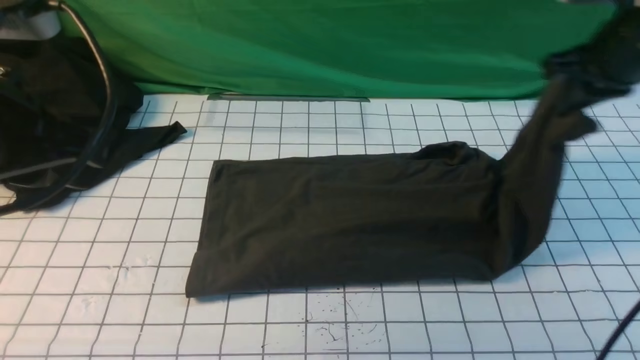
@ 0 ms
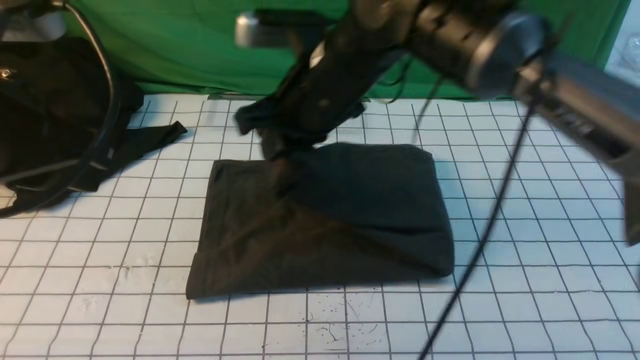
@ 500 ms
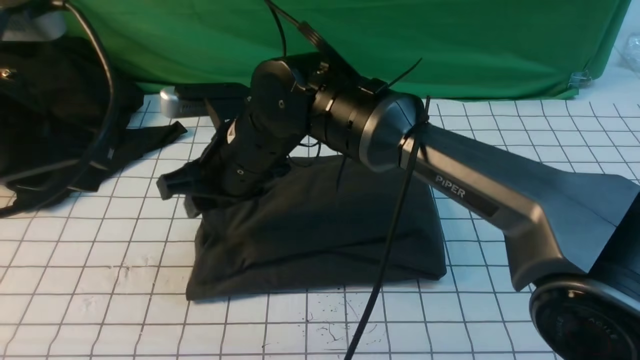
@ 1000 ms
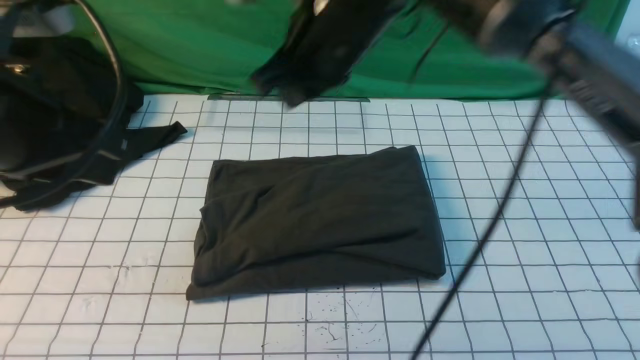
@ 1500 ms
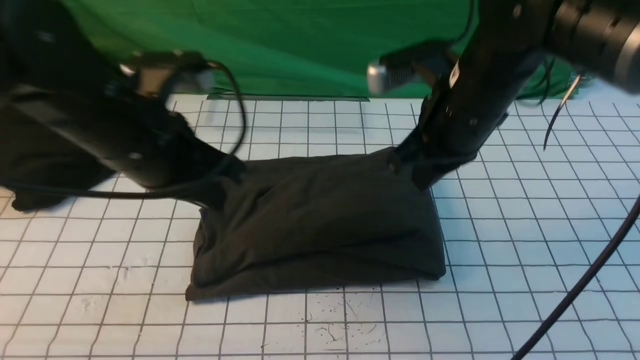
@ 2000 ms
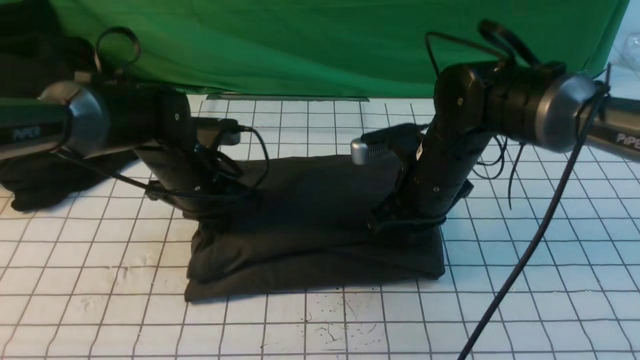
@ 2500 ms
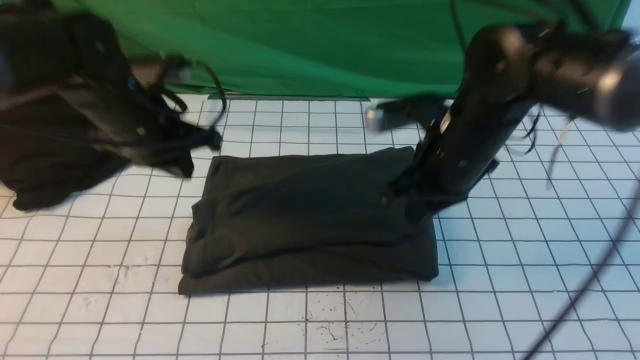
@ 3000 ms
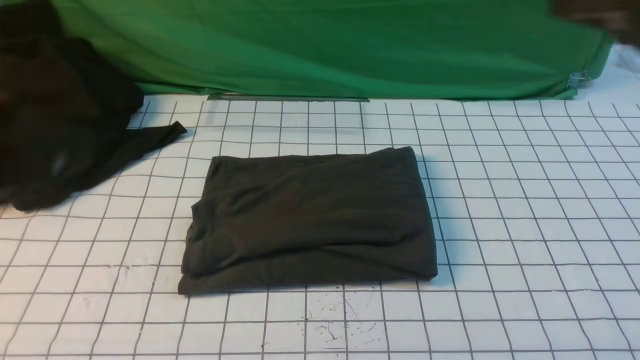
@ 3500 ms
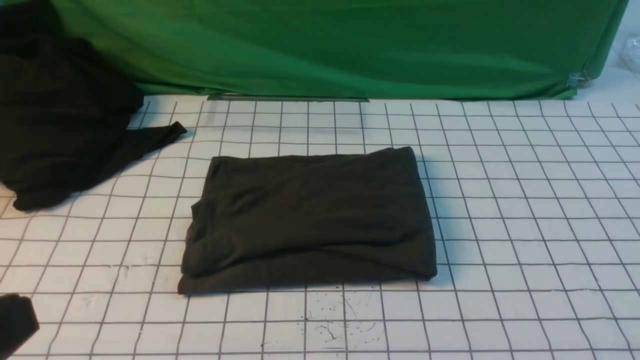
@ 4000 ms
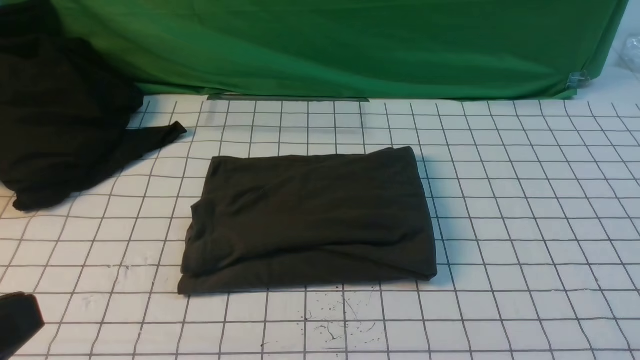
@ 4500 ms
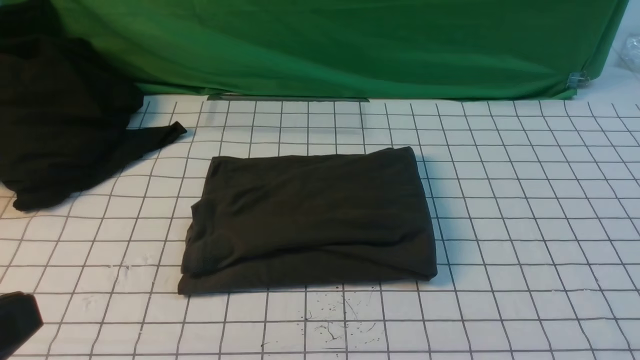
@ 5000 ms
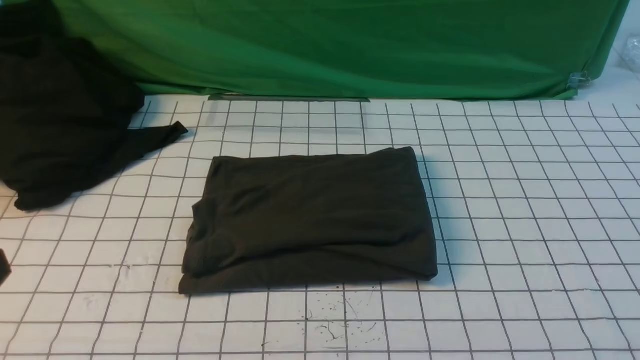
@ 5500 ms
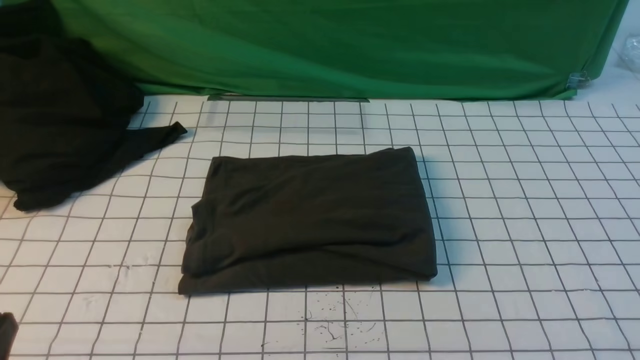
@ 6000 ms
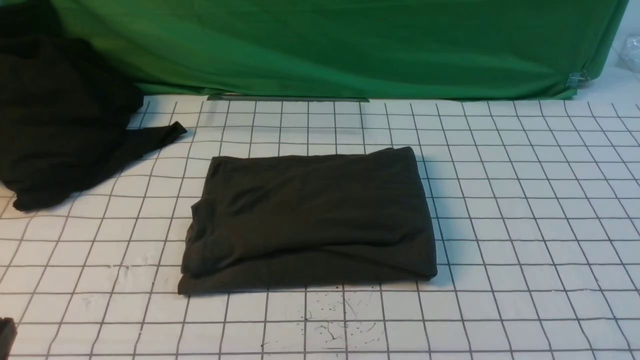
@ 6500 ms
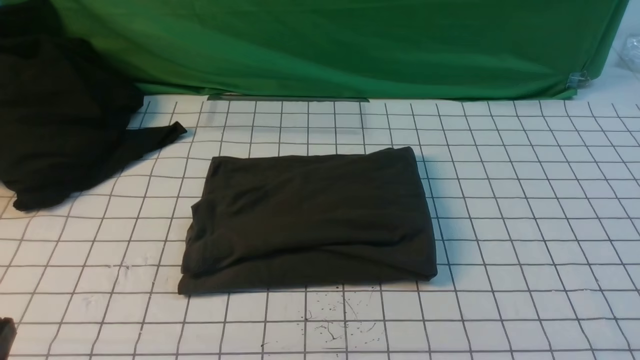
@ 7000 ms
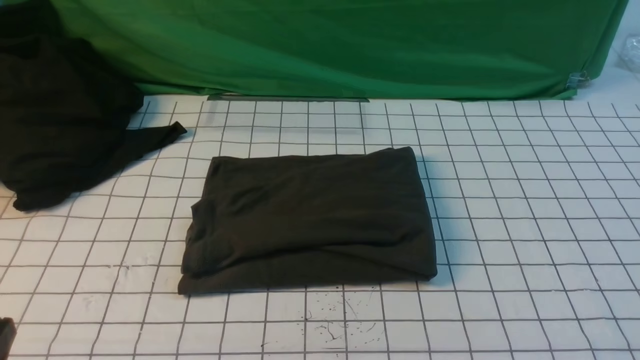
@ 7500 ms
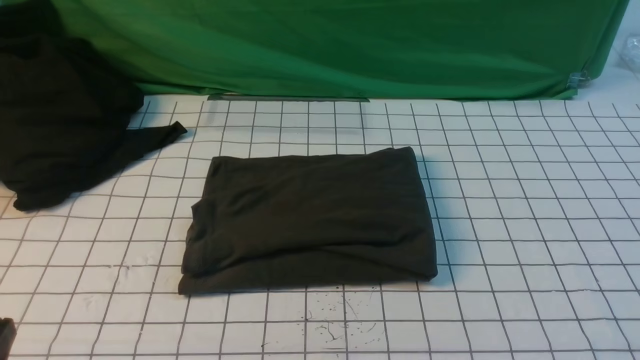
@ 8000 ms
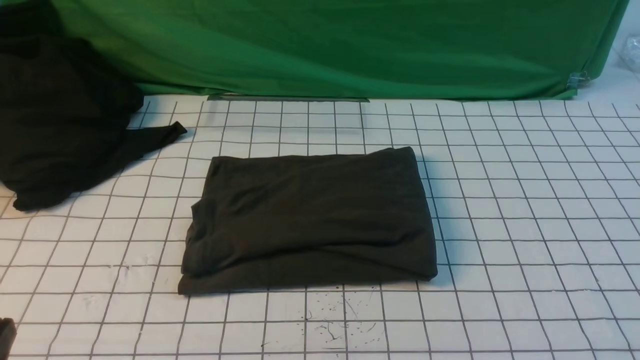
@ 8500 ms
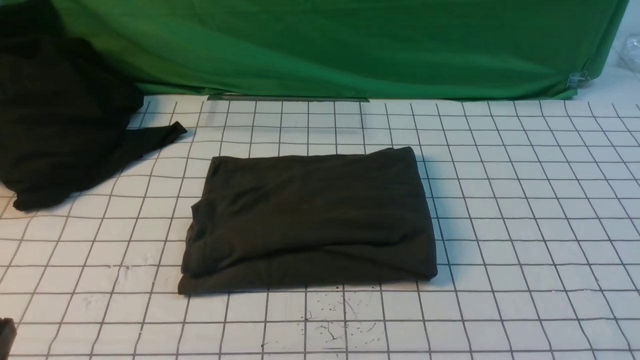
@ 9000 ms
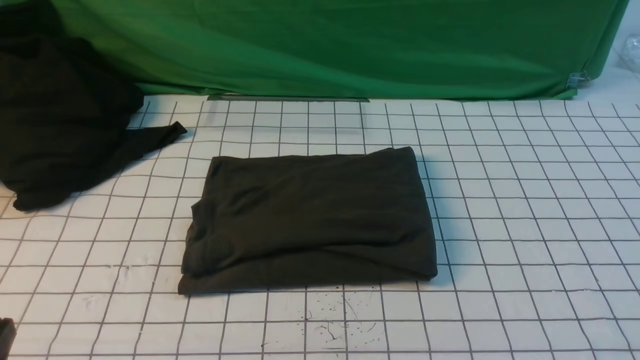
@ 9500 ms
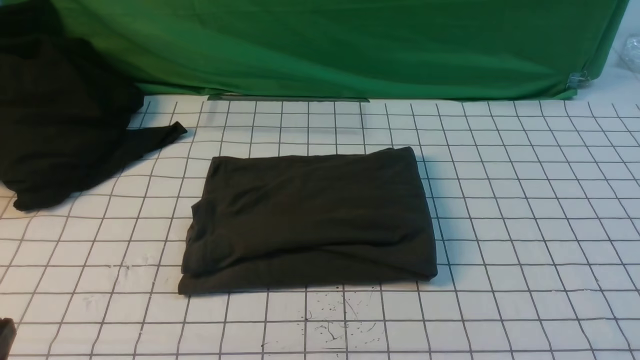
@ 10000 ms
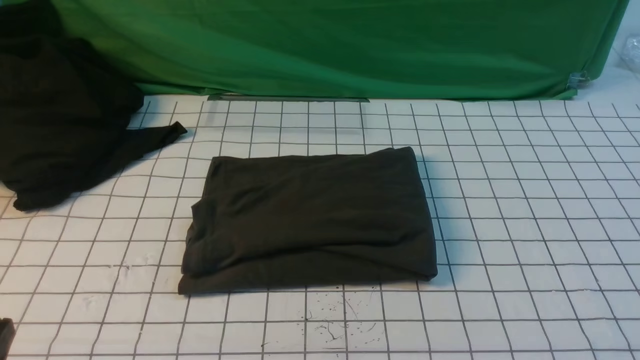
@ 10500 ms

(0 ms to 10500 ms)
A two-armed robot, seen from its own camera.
Step, 0 ms - 1000 ms: use the right arm to drag the right edge of the fabric to the left and folds it over the left edge.
0 ms - 2000 ms: The left gripper shifts roughly 15 cm forward, downward and to the right, while the right gripper is displaced to the left by roughly 15 cm, and opens, then closes again.
2000 ms - 4000 ms: The right gripper shifts some 40 cm backward and to the right, while the left gripper shifts roughly 30 cm backward.
4000 ms - 6500 ms: The left gripper heads downward, covering roughly 15 cm.

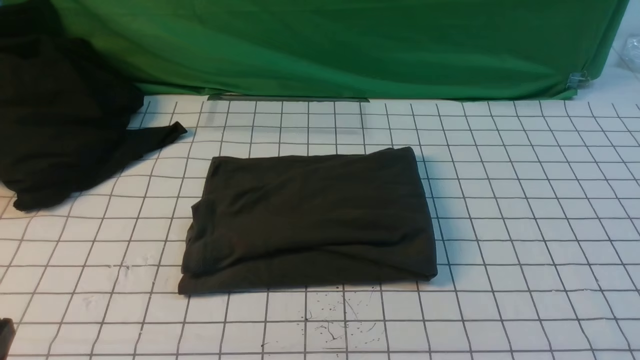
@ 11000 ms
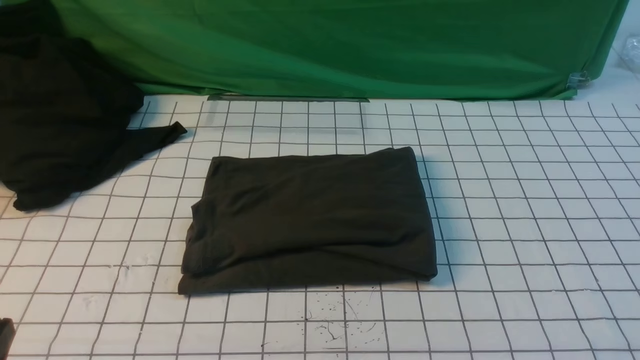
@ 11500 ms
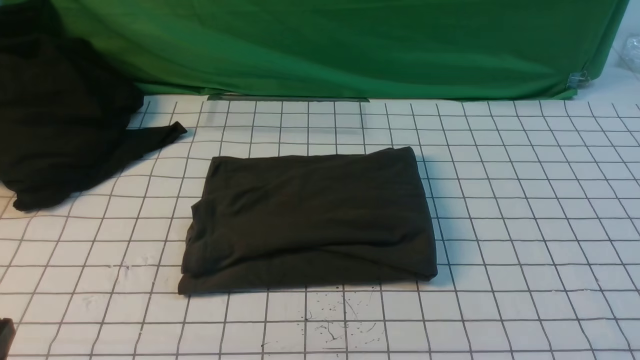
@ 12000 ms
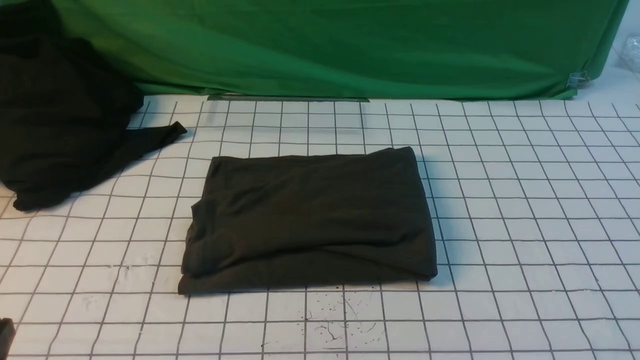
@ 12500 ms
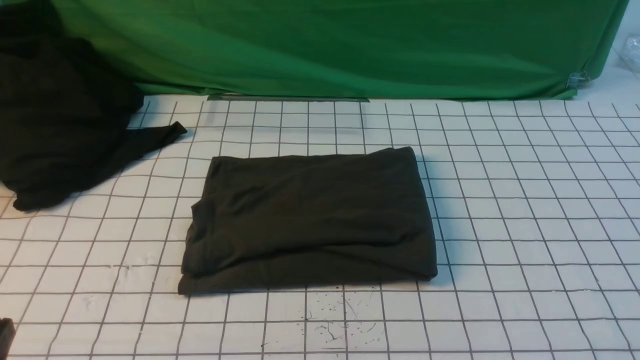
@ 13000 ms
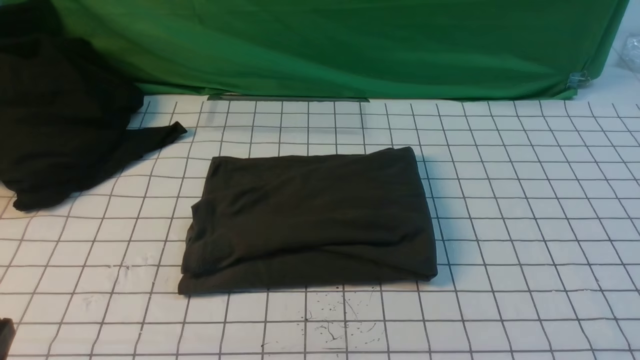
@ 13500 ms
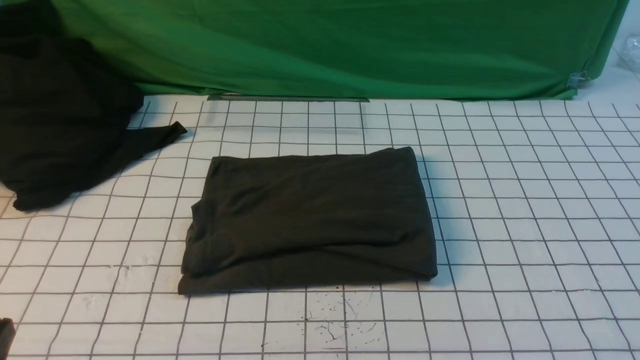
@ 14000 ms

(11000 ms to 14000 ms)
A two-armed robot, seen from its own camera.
11000 ms - 14000 ms: Both grippers stay about where they are.

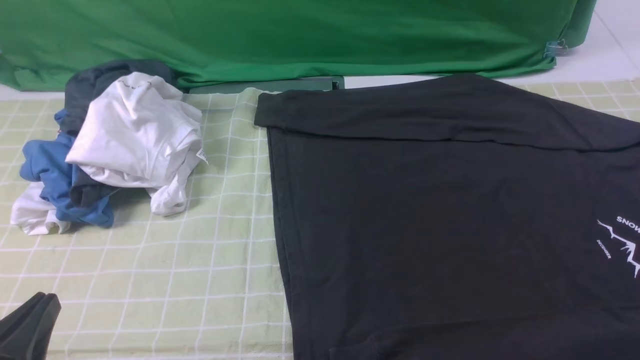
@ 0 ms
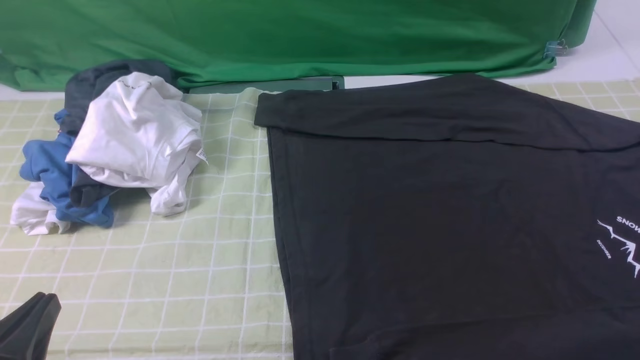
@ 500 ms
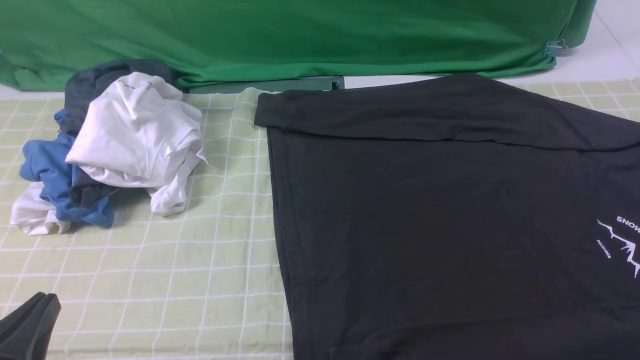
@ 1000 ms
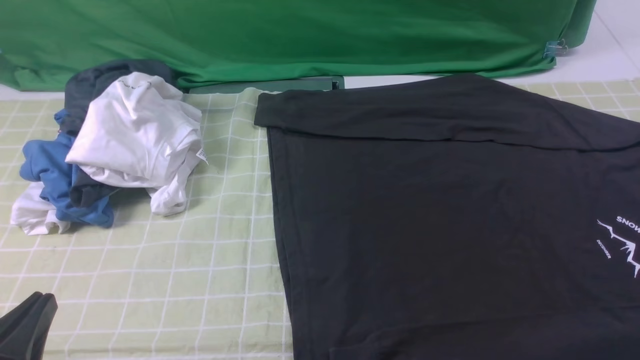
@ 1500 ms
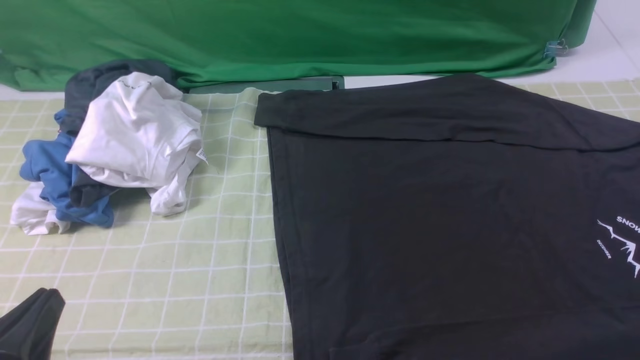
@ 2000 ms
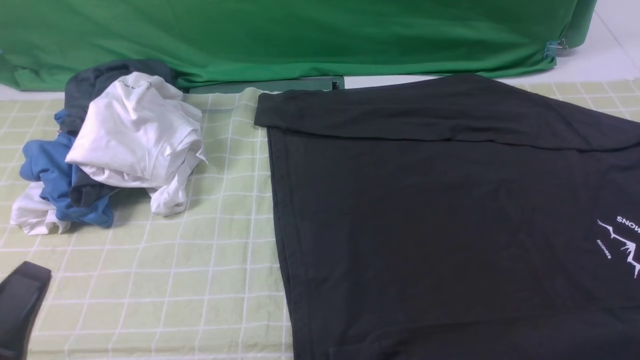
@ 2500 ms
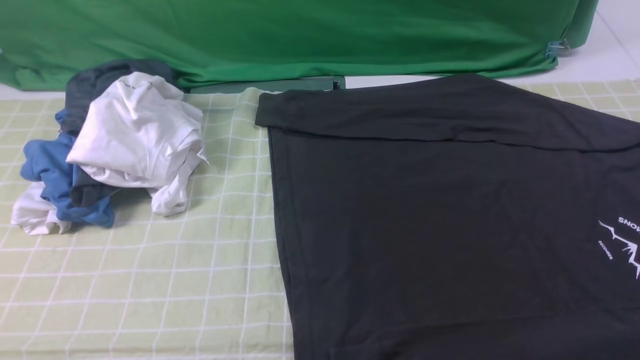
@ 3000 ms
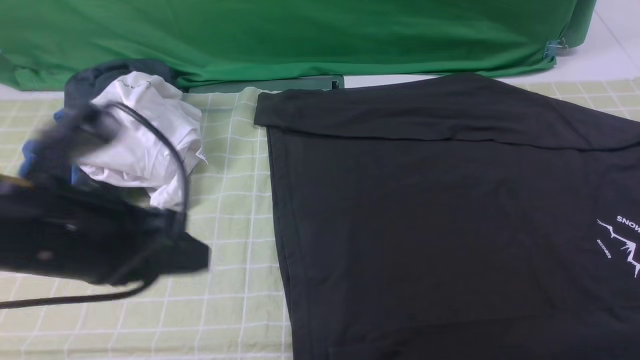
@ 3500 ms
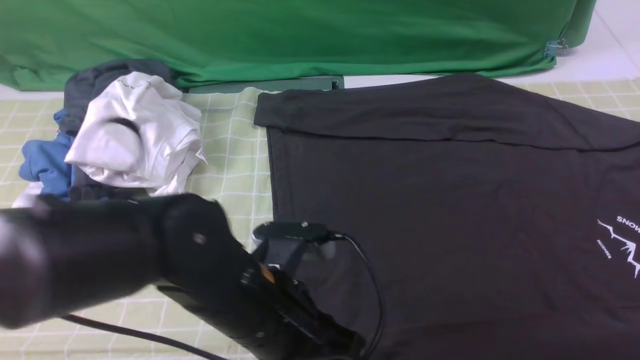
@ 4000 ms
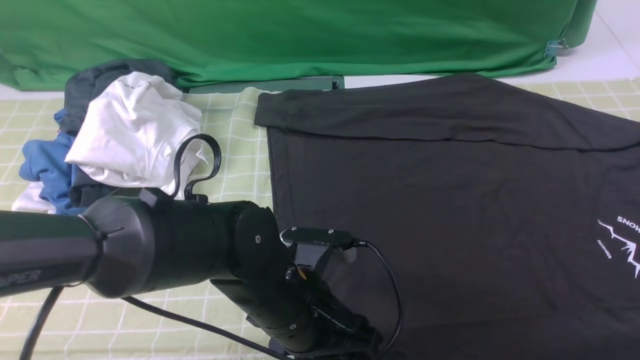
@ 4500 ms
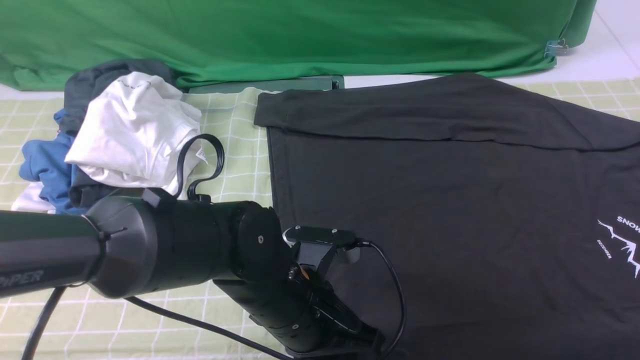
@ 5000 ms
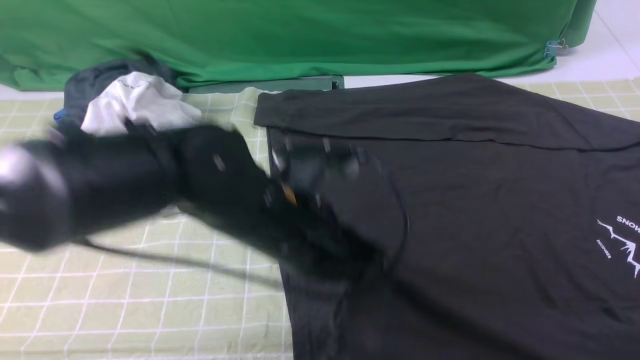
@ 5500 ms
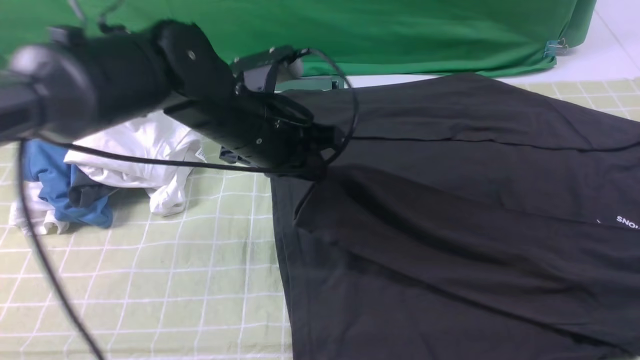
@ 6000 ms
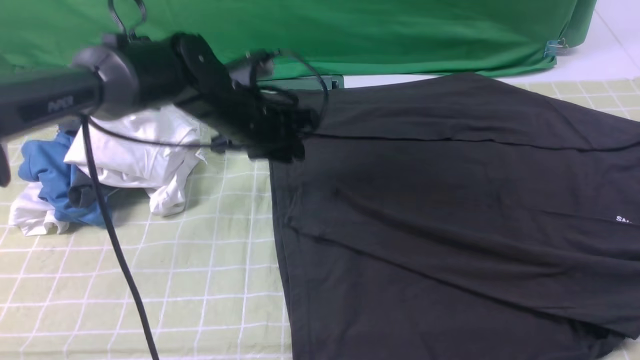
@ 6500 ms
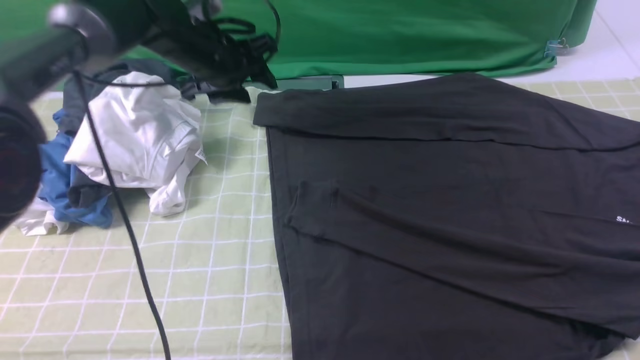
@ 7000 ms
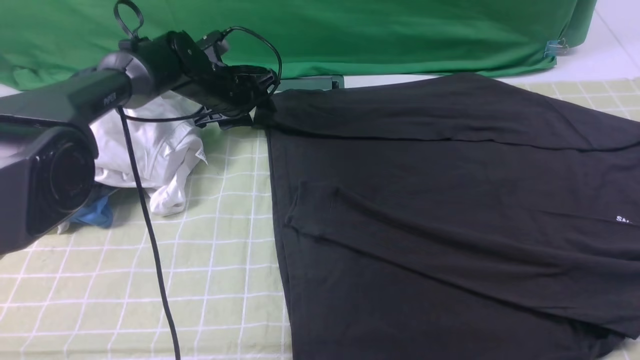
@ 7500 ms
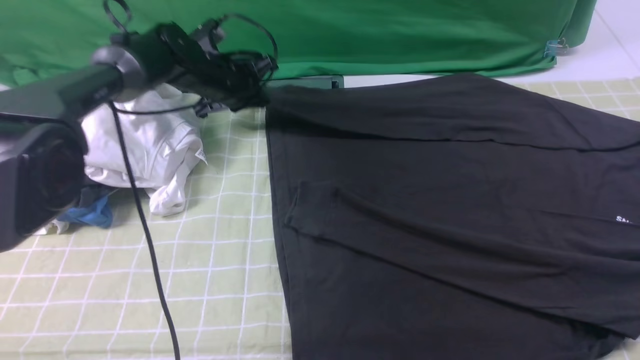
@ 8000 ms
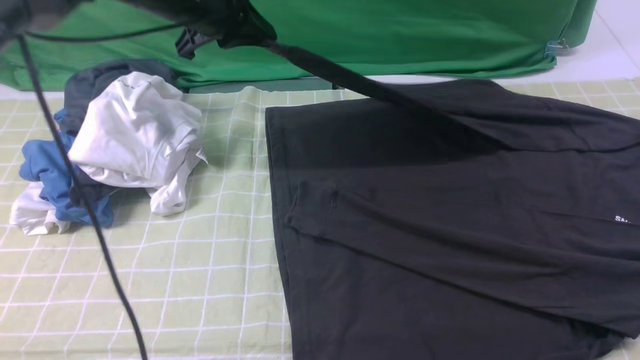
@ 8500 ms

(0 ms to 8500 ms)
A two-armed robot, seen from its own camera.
Step, 0 ms - 5000 ms: use the left arm to clamp the cuff closest to it.
Step, 5500 ms - 6500 ms: use the left arm to drag and place the cuff at the centered position on the left edge of the fabric.
Step, 7000 ms - 7500 ms: use the left arm to clamp the cuff farthest from it.
2000 ms - 4000 ms: The left gripper is displaced to the right and forward by approximately 25 cm, and opens. The right gripper heads upward and forward, covering about 20 cm, and closes up.
4000 ms - 6500 ms: The left gripper shifts approximately 25 cm forward, and closes, then reopens.
6500 ms - 8500 ms: The left gripper shifts approximately 10 cm upward, and closes its fingers.
